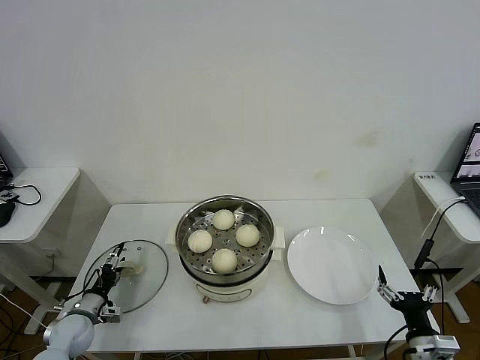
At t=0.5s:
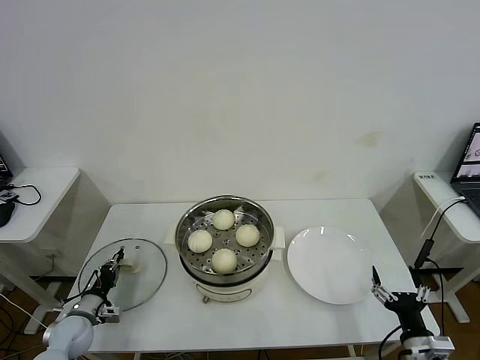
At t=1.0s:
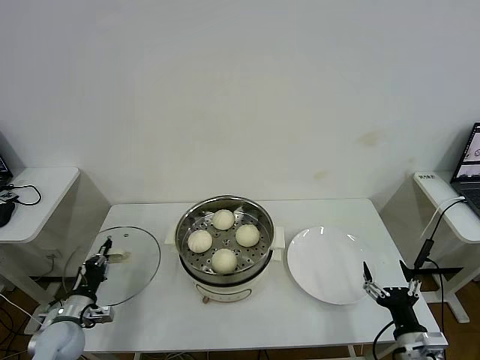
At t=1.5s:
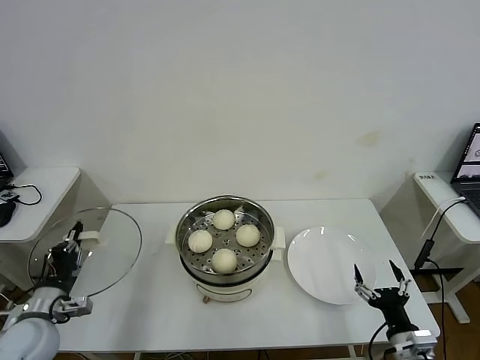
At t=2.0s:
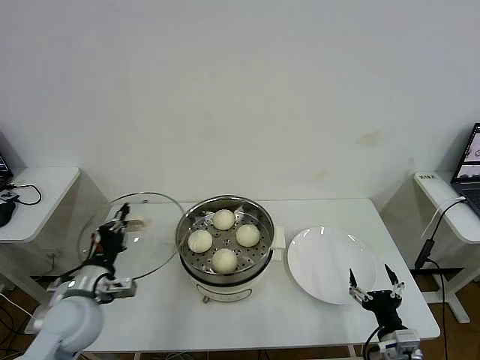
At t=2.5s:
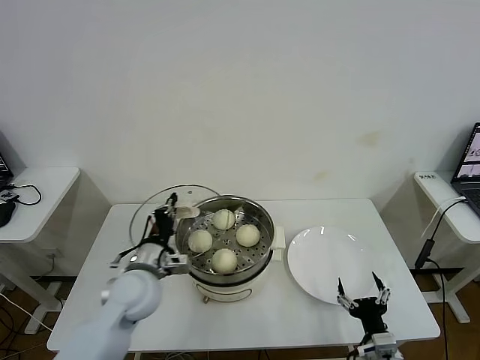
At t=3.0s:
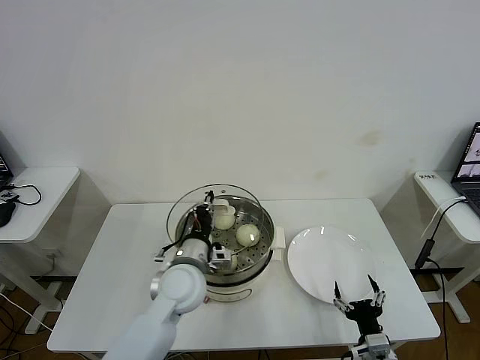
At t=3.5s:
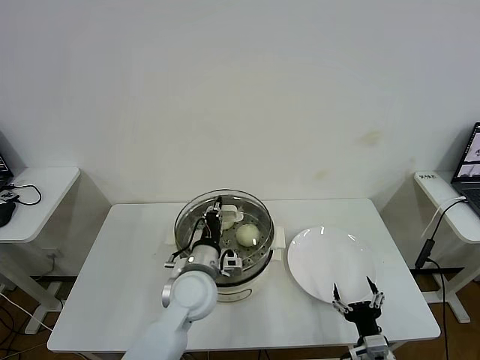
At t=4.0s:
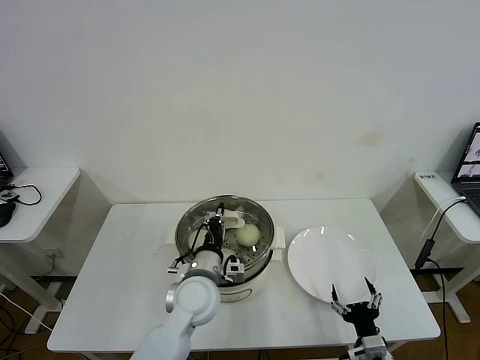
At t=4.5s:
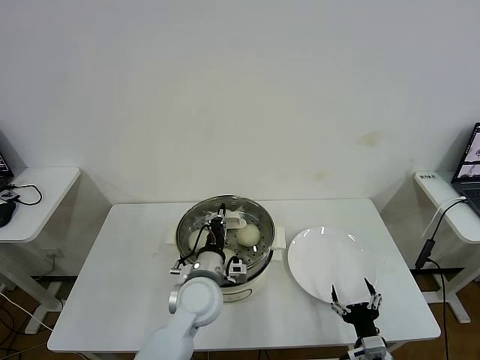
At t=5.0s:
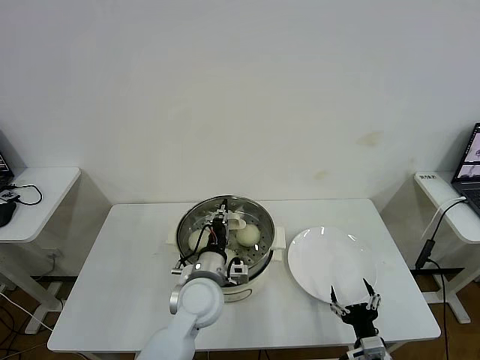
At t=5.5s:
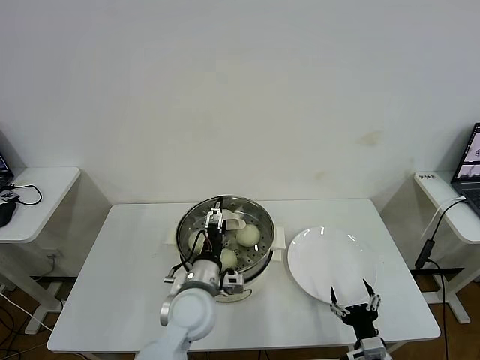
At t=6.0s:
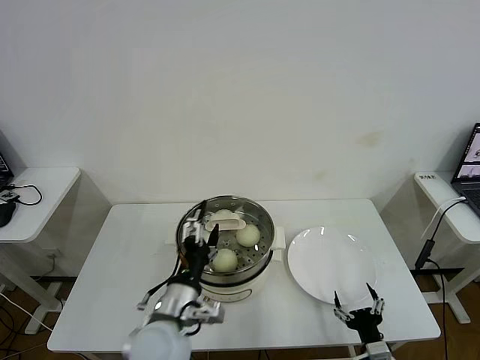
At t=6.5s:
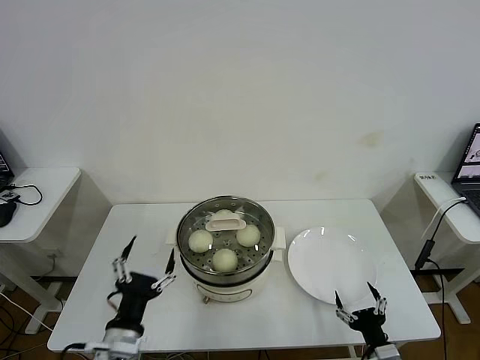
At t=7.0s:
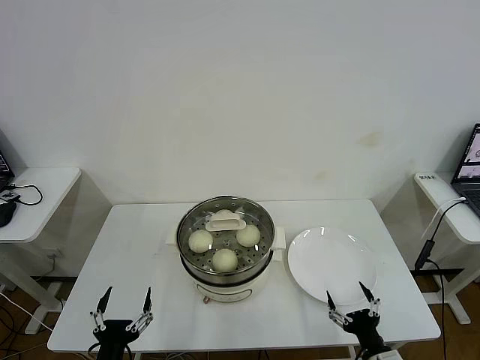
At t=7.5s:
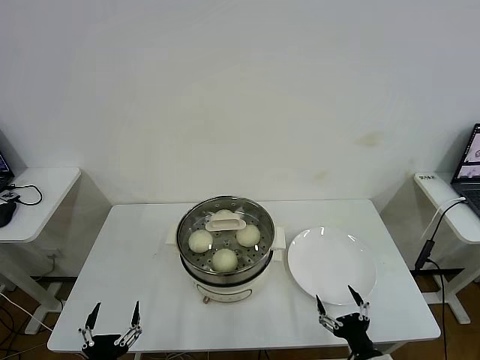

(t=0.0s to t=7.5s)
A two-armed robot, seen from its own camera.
Task of the whole recording: take steamed baozi put them in steamer then cover it.
Step, t=1.0s - t=5.5s: Place the pot lid on the steamer with left gripper.
t=0.0s - t=2.0s: The left gripper shifts about 20 cm upward and to the right, and closes its fingers.
t=2.0s - t=4.0s: The right gripper ends up some 5 cm from where it was, while the left gripper goes some 20 cm to the right.
t=4.0s - t=5.5s: The left gripper opens.
t=5.5s - t=7.5s: The left gripper heads backward and to the left, covering approximately 30 cm.
